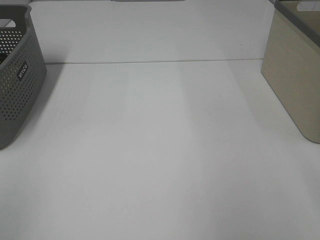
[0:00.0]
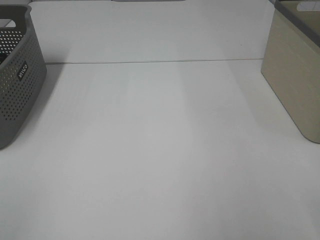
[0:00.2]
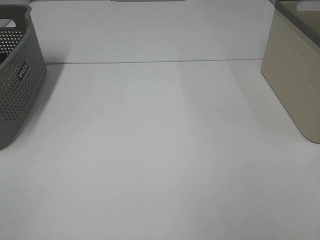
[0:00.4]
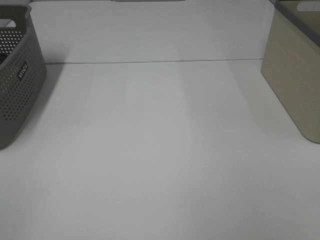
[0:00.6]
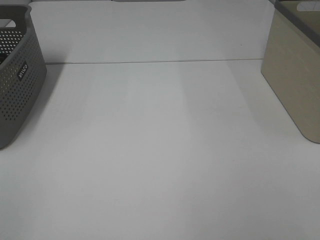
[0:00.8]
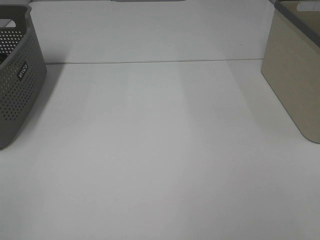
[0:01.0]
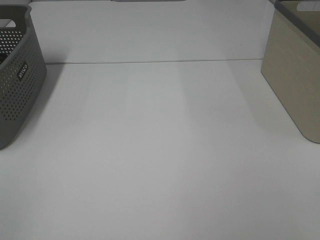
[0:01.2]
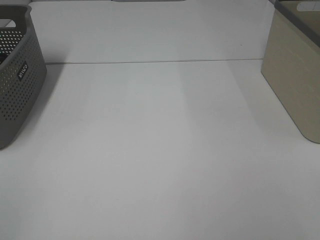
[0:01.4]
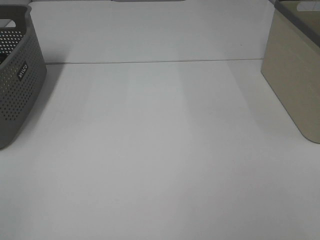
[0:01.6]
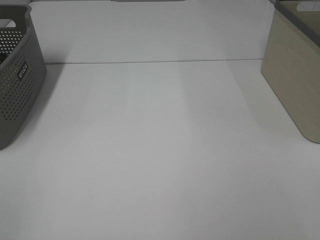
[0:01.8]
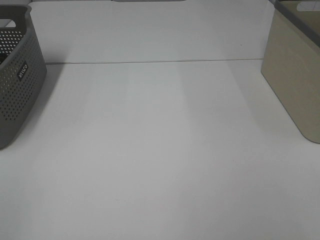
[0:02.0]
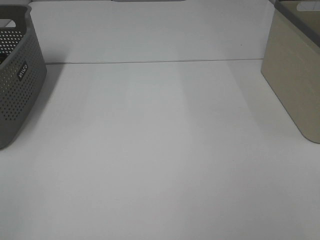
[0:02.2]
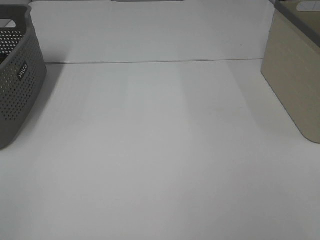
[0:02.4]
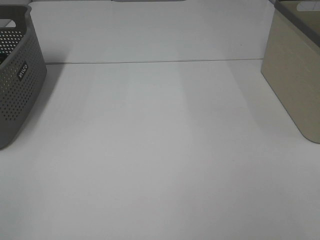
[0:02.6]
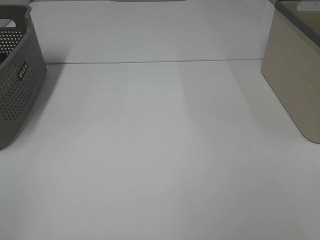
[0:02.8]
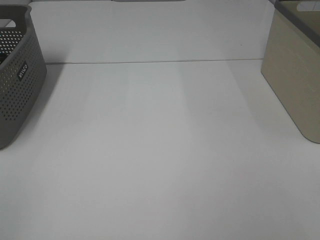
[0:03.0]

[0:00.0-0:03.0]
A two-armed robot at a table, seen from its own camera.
0:01.6 to 0:03.0: Both grippers stay about where they are.

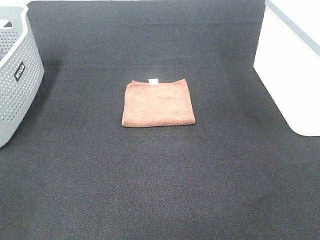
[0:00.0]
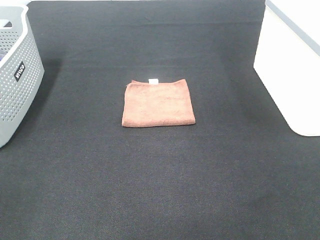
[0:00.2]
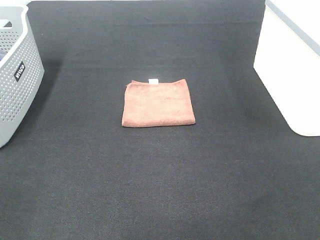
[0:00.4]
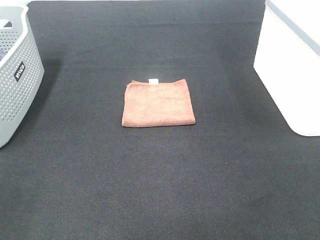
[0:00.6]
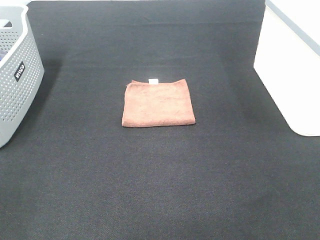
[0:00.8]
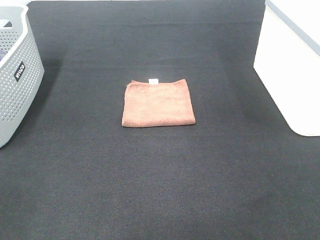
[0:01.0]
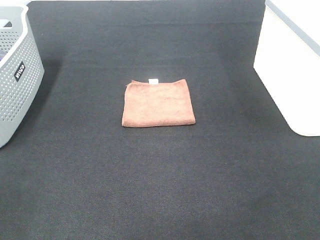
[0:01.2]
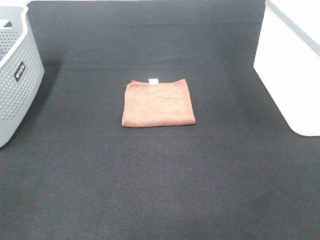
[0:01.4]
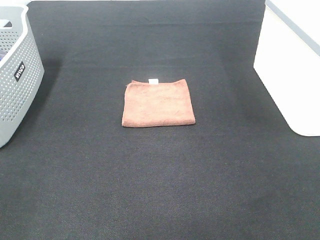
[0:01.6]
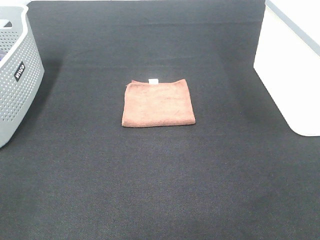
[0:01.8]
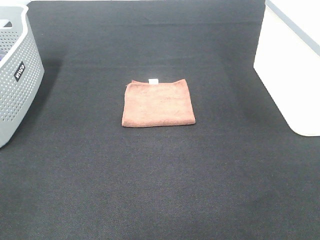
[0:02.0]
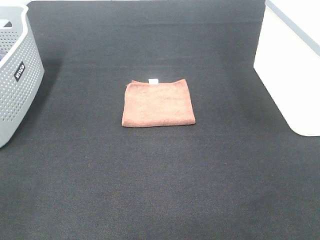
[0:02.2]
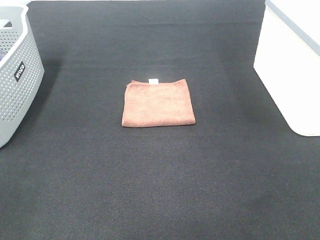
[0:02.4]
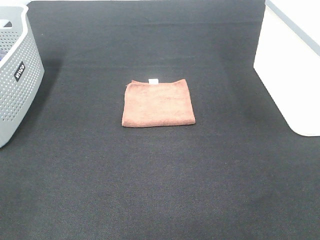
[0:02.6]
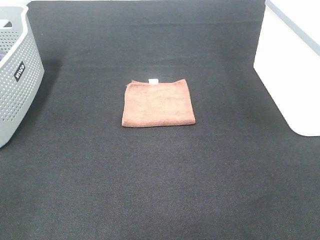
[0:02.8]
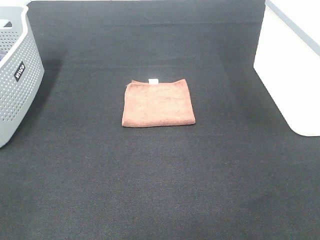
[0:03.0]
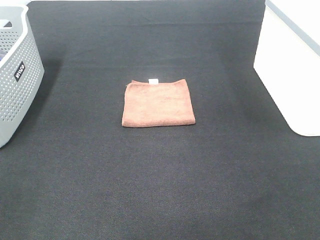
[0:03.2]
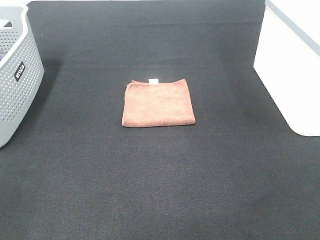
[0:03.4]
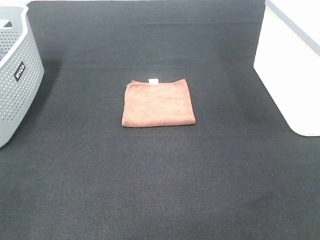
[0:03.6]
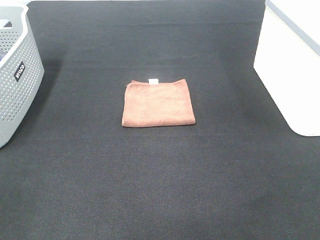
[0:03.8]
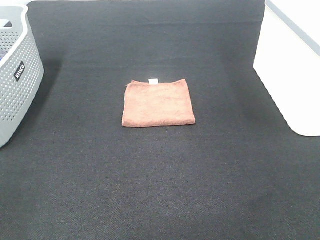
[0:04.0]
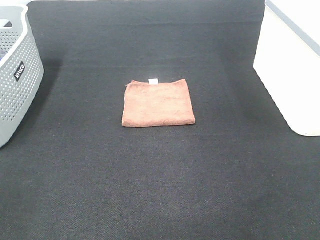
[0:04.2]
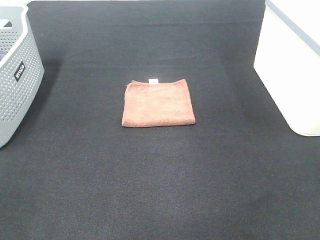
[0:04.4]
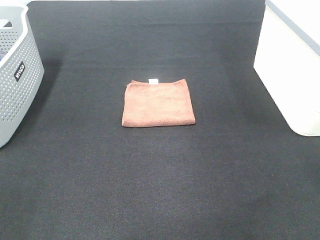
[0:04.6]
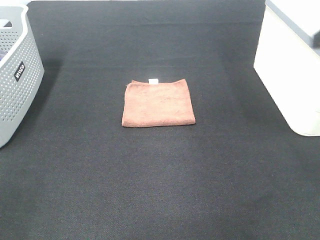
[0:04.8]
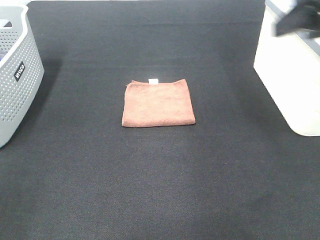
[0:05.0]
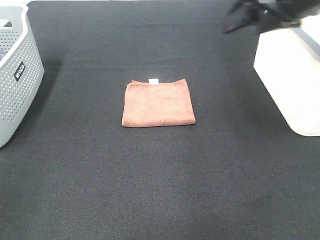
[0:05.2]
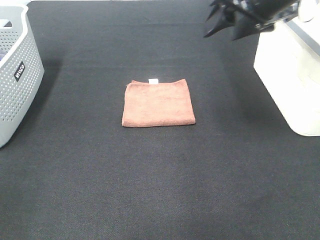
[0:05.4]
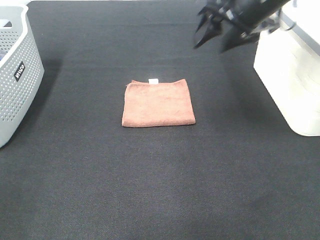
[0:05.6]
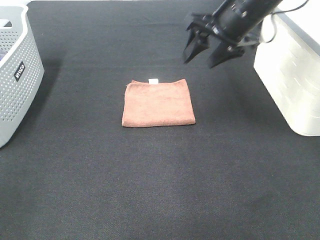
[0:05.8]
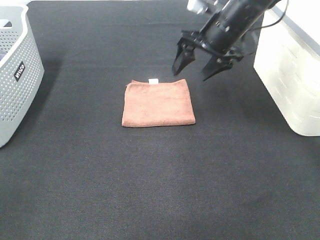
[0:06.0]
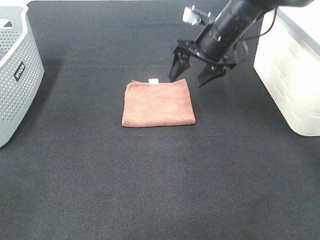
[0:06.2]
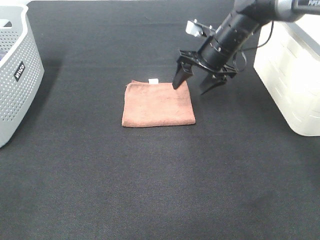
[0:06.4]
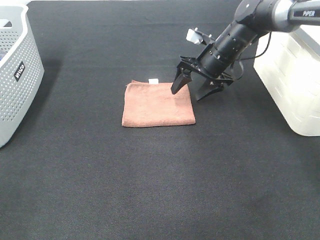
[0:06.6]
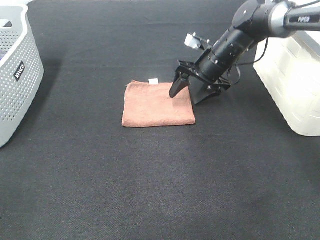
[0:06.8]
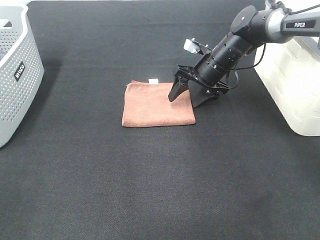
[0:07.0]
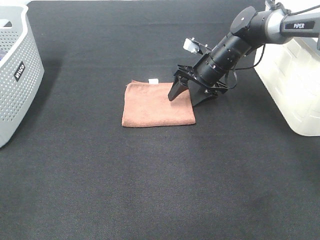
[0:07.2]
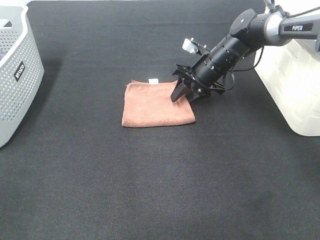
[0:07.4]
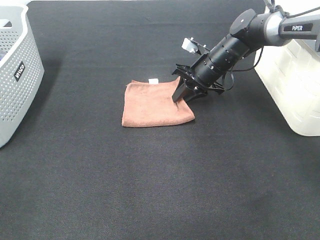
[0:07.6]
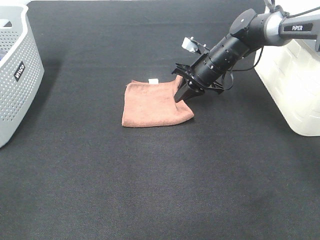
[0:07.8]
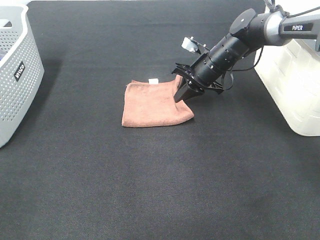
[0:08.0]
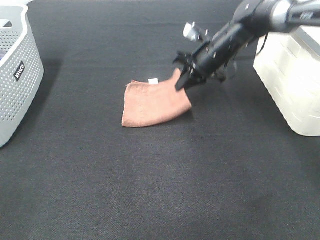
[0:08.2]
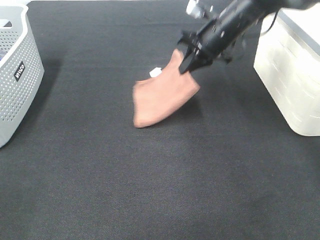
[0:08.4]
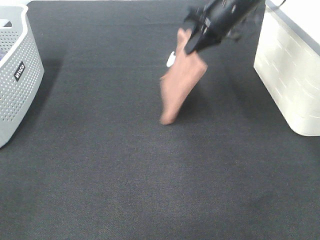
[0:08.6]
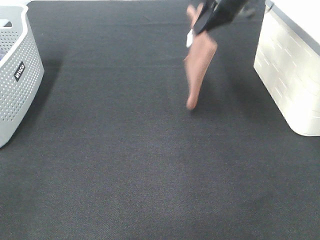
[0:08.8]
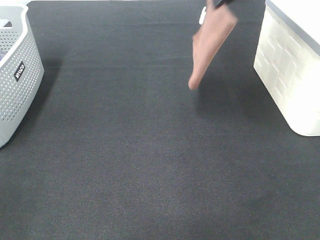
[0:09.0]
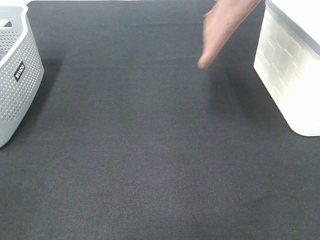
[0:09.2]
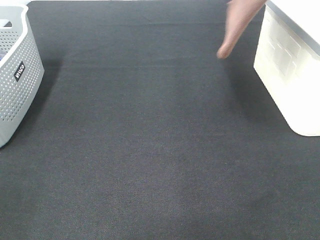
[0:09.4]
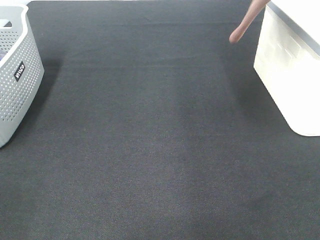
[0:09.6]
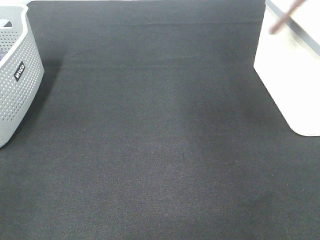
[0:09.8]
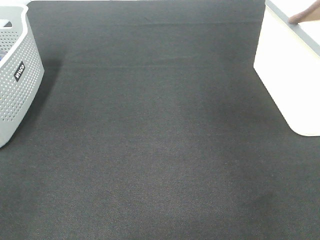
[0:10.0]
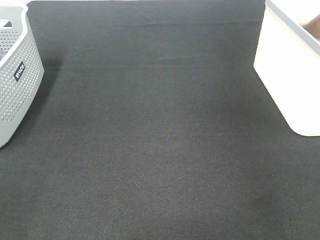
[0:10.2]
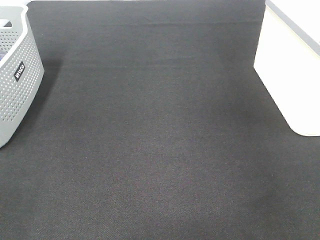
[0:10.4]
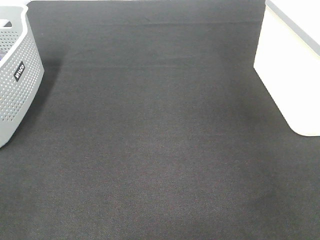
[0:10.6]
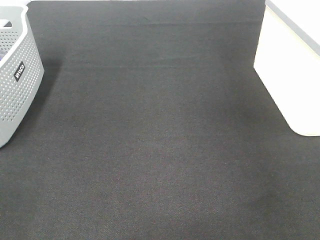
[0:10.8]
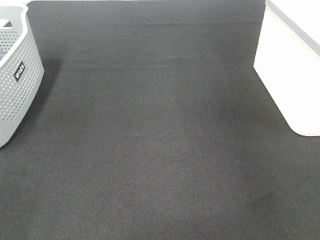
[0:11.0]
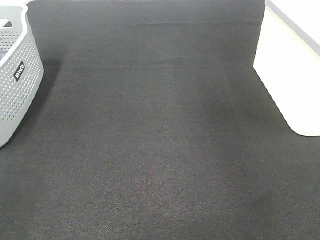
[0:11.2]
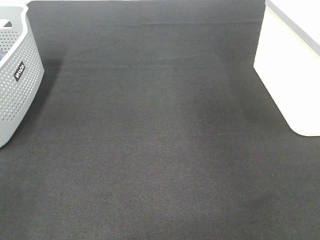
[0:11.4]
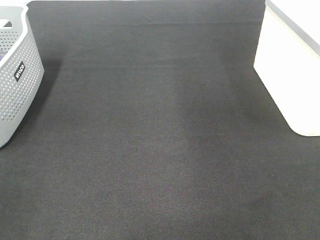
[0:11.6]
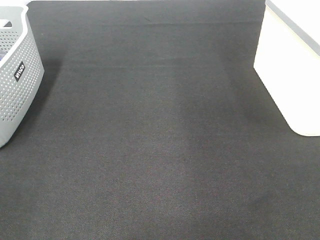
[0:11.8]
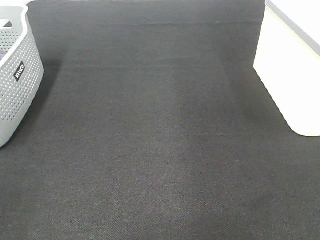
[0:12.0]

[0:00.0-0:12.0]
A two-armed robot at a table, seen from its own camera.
Step, 0:00.0 to 0:07.8: Right hand: grab the folded brown towel.
Step, 0:08.0 to 0:10.8: Right hand: place the brown towel in right basket.
0:00.0 to 0:03.0: Neither gripper changes place.
0:04.4 to 0:06.0: The right gripper moves forward and to the left, some 35 cm.
0:06.0 to 0:07.6: The right gripper heads downward, covering some 10 cm, and closes.
0:07.6 to 0:09.0: The right gripper is displaced upward by roughly 25 cm.
0:09.0 to 0:10.4: The right gripper moves to the right, about 25 cm.

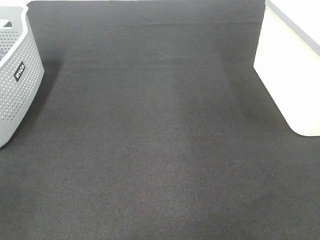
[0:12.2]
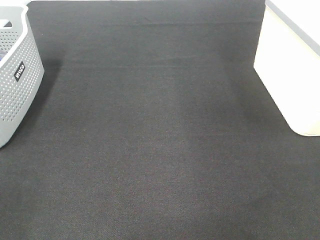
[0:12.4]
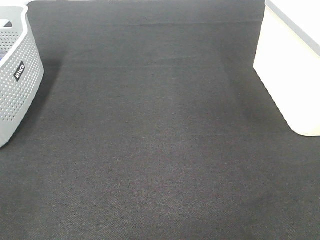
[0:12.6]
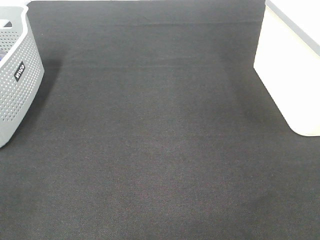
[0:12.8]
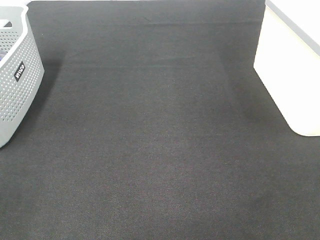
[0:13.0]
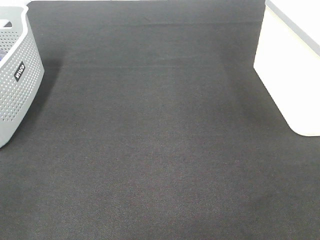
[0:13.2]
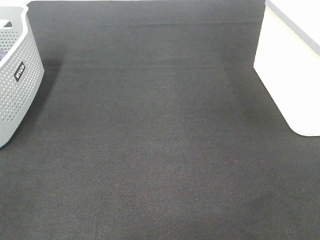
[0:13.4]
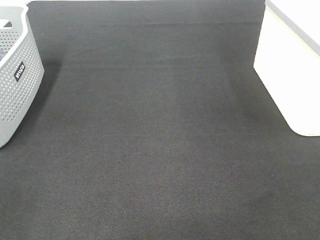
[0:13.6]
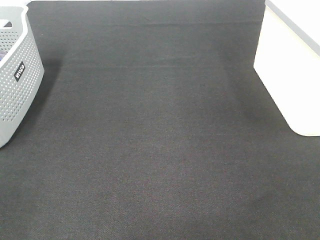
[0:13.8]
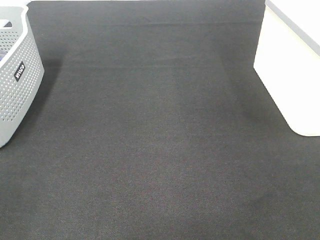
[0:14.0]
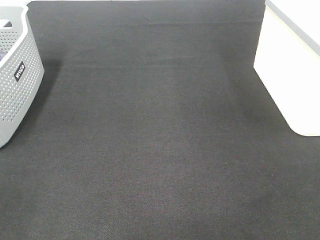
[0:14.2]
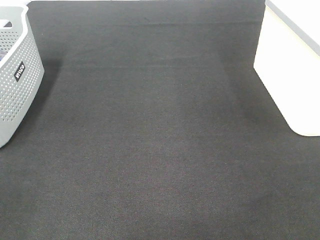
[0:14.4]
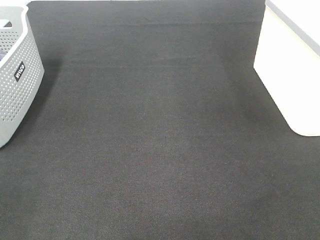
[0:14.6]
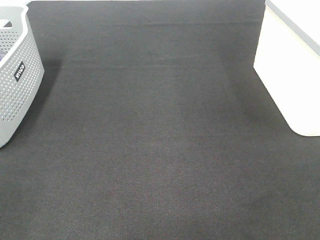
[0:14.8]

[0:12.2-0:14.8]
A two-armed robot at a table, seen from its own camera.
0:13.4 to 0:14.8: Neither gripper changes place.

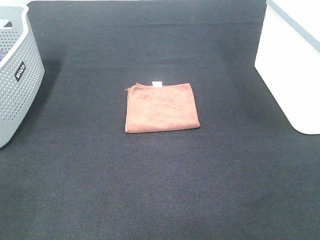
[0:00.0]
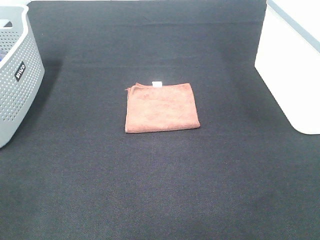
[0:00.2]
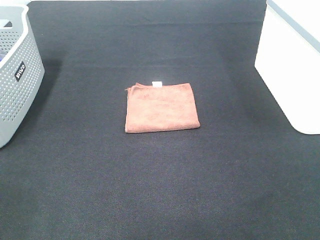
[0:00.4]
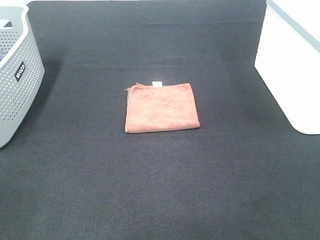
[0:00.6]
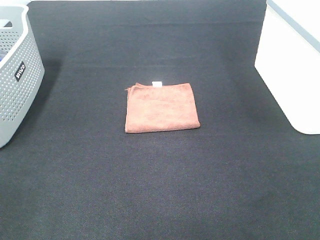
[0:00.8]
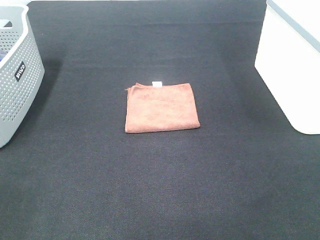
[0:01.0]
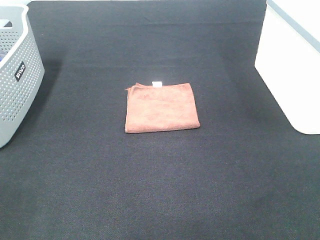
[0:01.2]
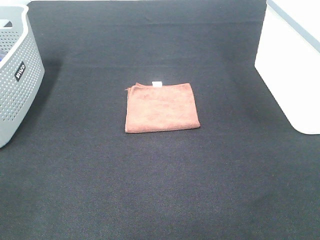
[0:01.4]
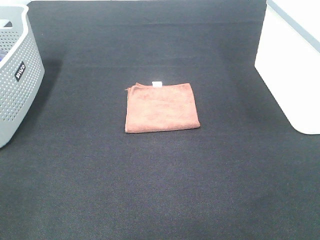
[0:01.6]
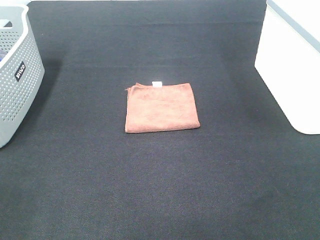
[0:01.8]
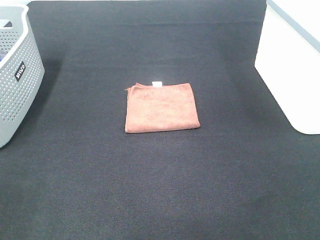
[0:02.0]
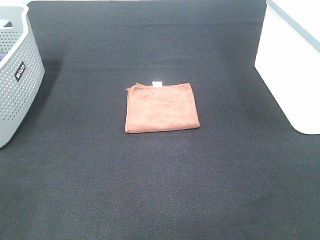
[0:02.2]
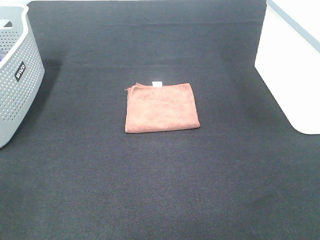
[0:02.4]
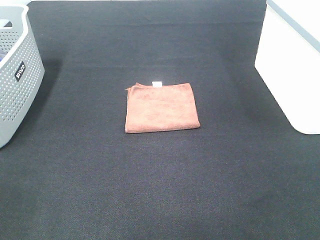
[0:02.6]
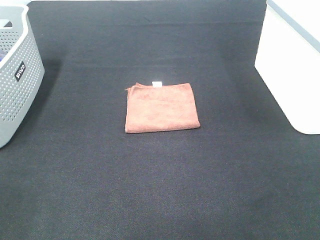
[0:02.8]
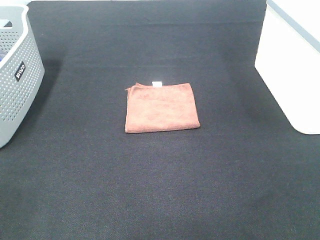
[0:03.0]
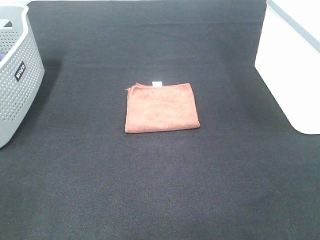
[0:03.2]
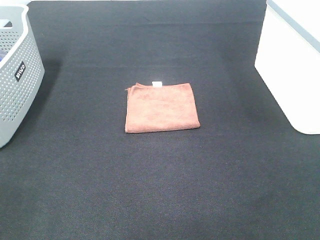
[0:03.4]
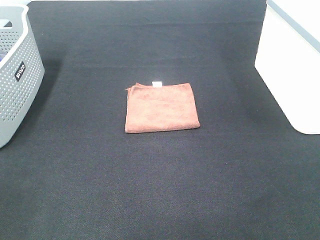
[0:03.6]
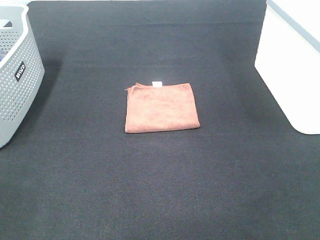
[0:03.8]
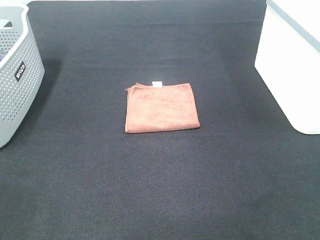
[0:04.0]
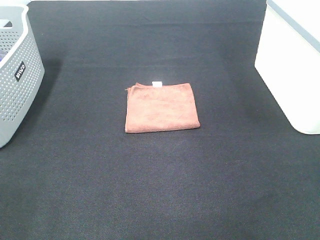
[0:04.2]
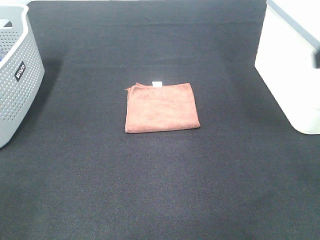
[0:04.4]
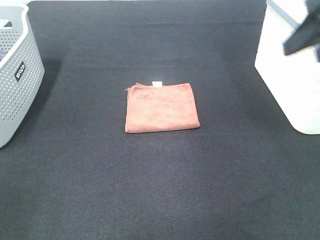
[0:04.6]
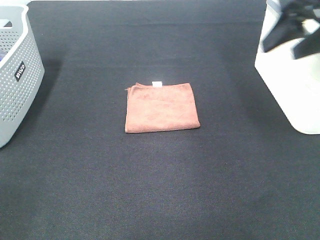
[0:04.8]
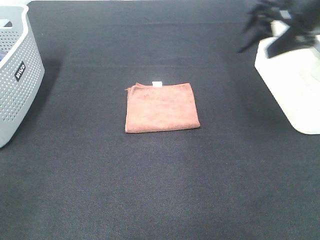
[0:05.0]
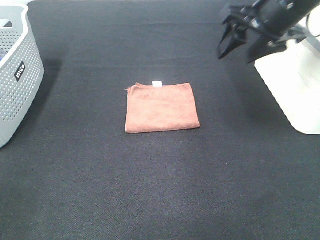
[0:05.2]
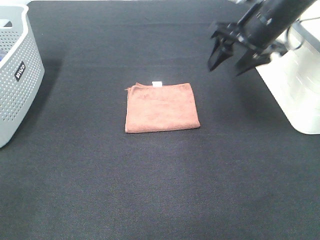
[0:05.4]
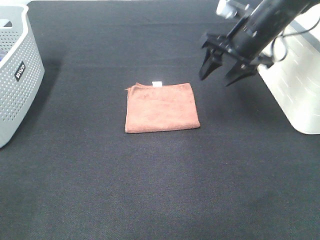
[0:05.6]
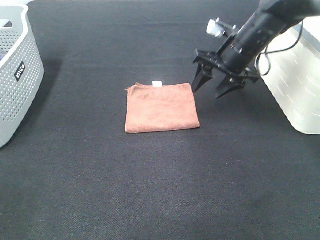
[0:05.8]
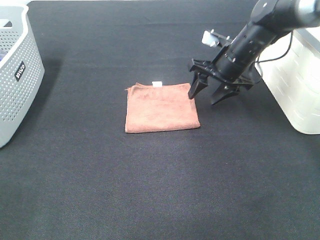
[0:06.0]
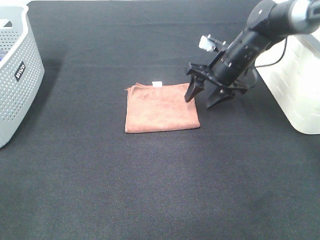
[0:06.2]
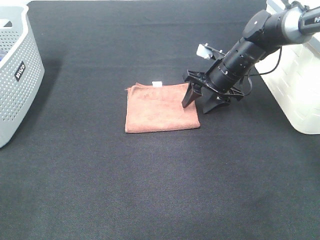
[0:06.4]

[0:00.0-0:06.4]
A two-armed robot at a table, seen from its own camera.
0:00.0 to 0:03.2: Both grippers stay about where they are.
0:03.2 to 0:04.8: The right gripper shifts about 30 cm forward.
0:04.8 to 0:06.4: The right gripper moves downward and forward, about 25 cm.
